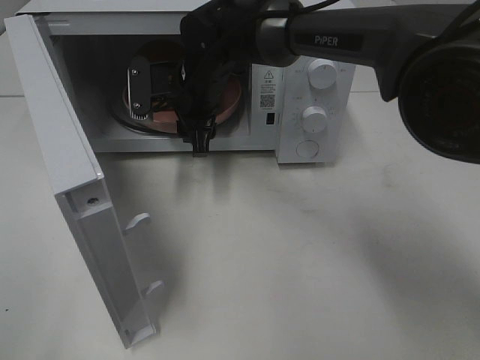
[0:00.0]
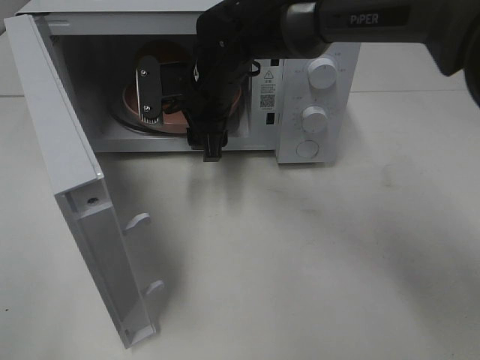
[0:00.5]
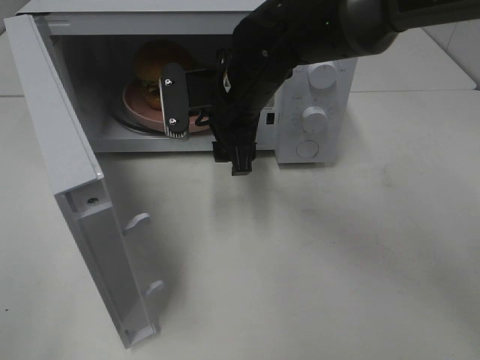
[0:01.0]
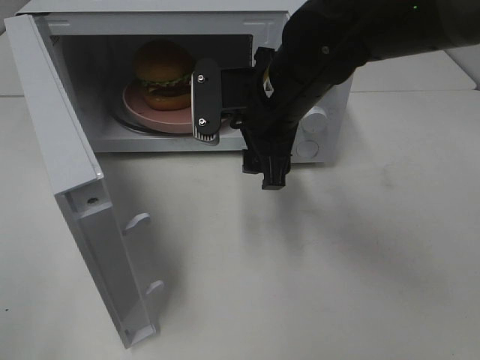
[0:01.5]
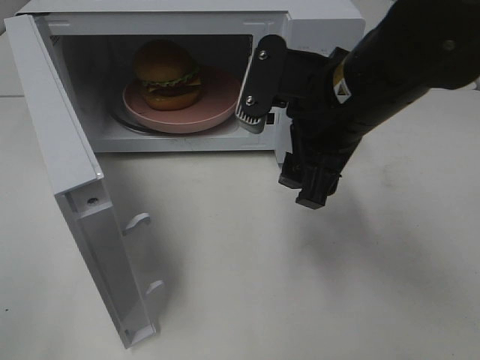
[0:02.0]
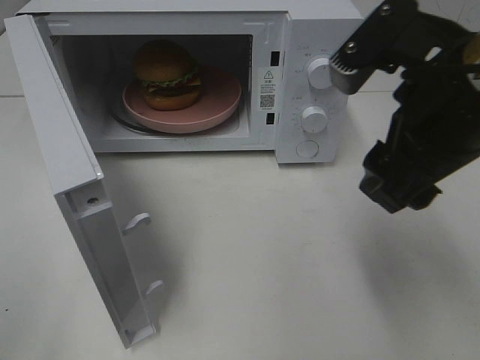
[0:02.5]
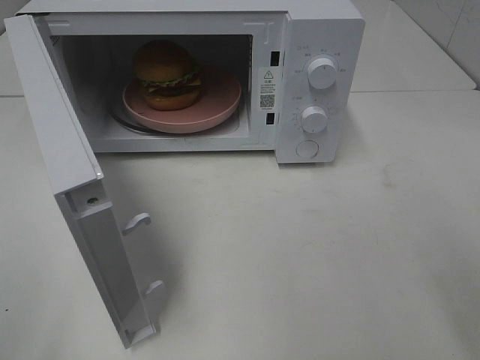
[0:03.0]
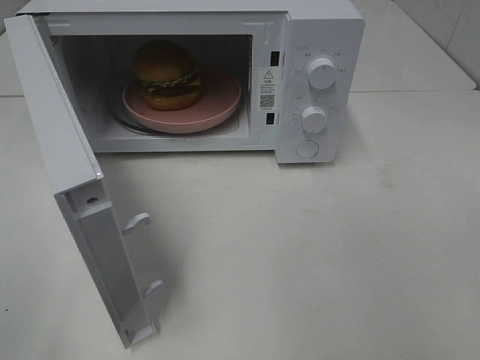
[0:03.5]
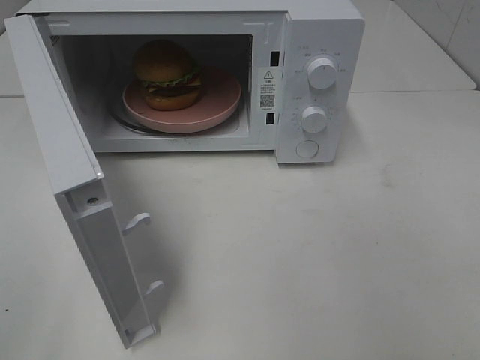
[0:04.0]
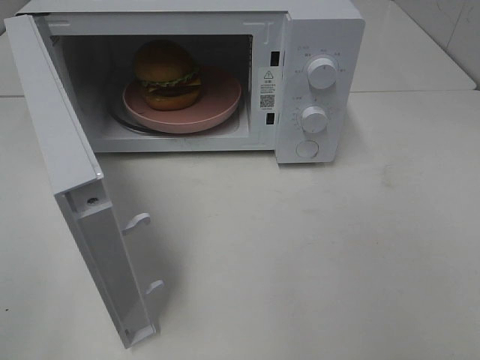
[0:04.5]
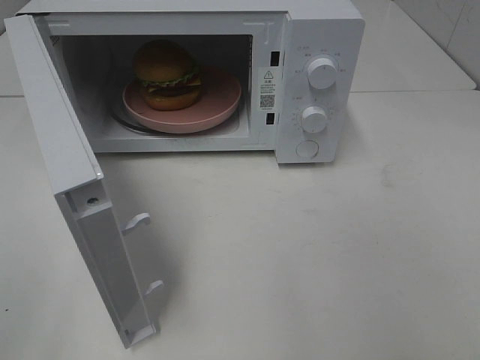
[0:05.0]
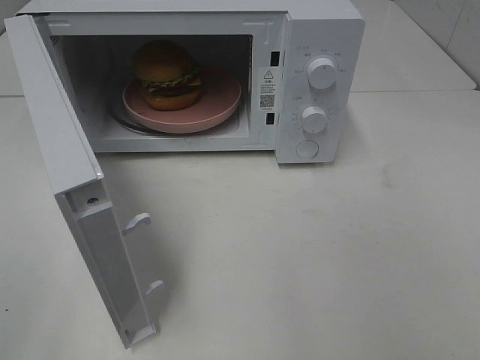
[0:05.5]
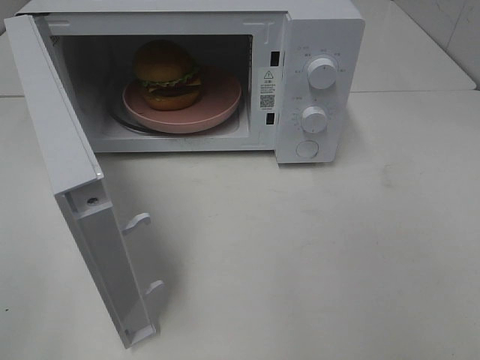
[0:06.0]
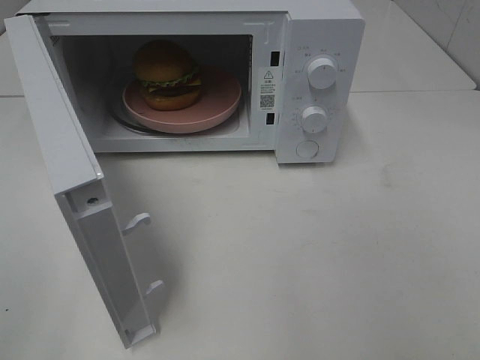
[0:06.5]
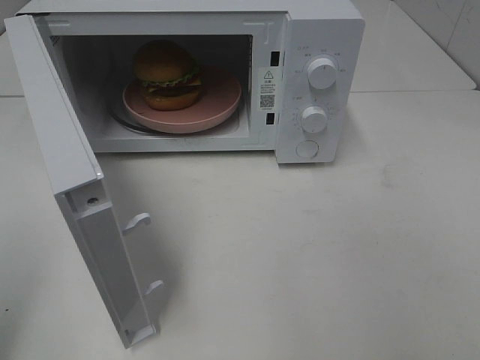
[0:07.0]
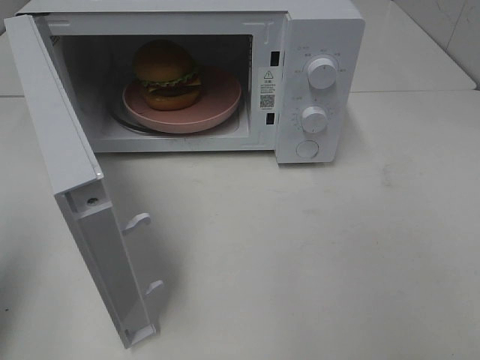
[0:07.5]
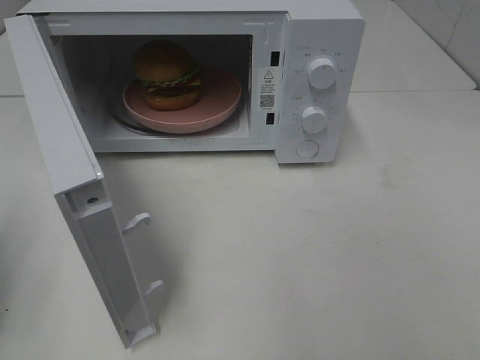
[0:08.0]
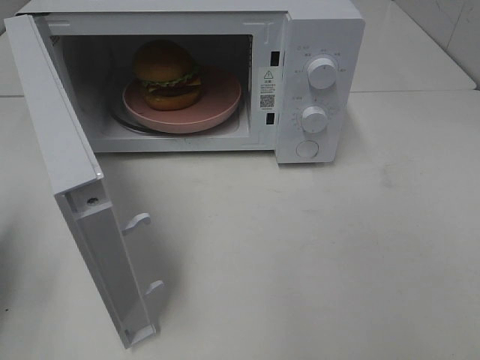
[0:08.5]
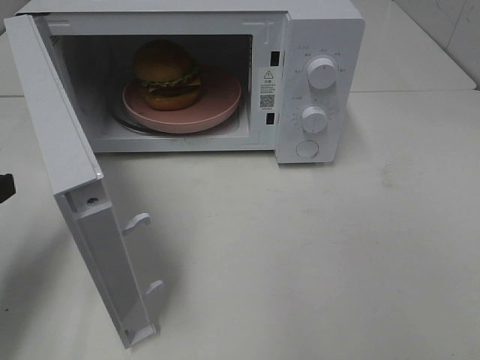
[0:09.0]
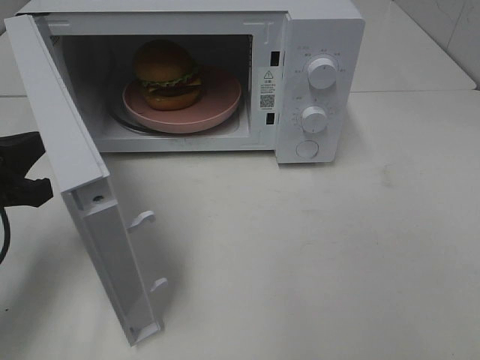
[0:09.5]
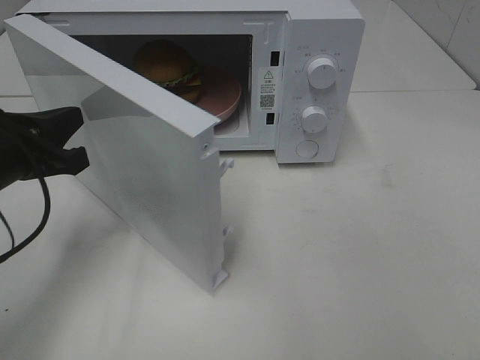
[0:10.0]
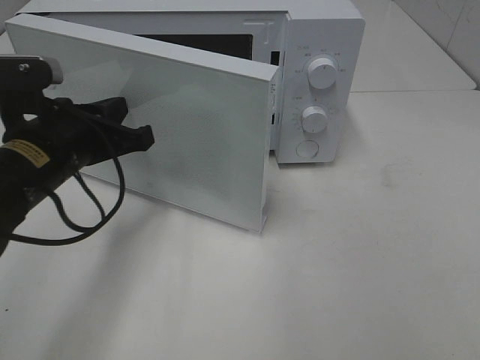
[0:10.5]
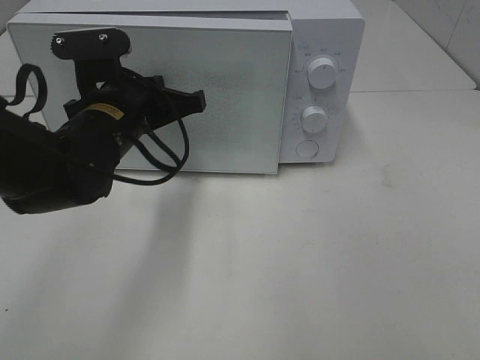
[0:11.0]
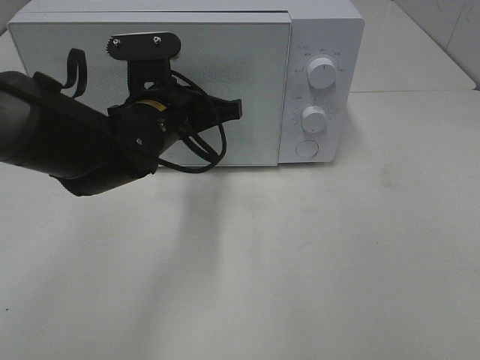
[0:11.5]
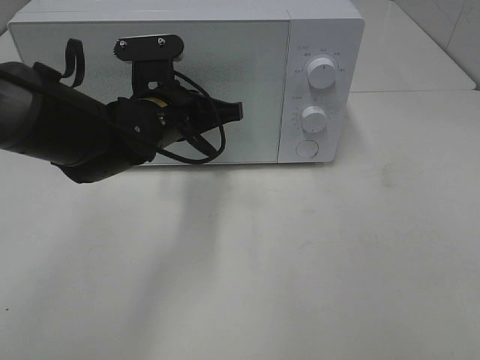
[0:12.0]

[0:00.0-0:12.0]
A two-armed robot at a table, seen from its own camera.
Task of the whole recording: Heat the burger.
0:00.0 to 0:02.0: The right gripper goes roughly 25 cm backward, to the right and upward.
0:02.0 to 0:04.0: The right gripper moves backward and to the right, about 30 cm.
0:08.0 to 0:10.0: The left gripper is displaced to the right and forward by approximately 15 cm.
0:10.0 to 0:12.0: The left gripper moves to the right and forward, approximately 20 cm.

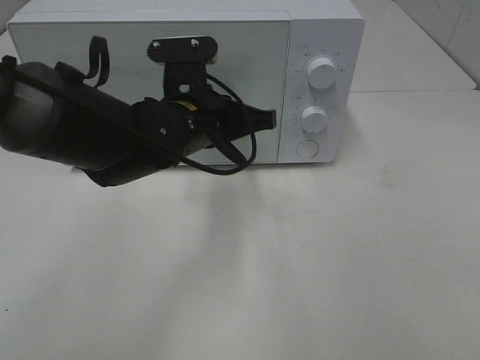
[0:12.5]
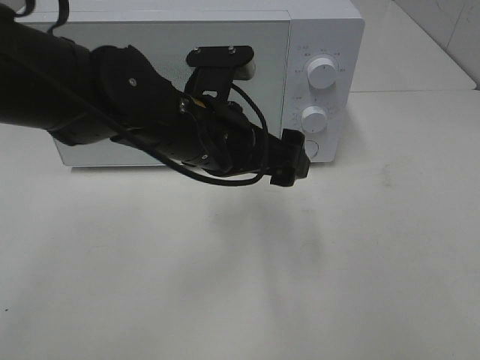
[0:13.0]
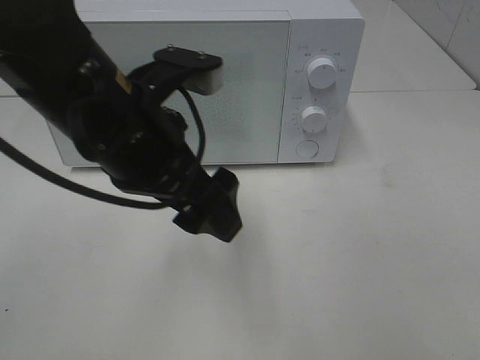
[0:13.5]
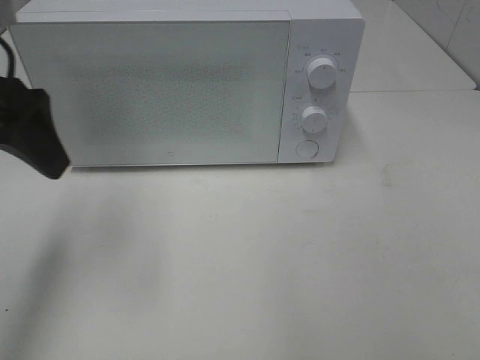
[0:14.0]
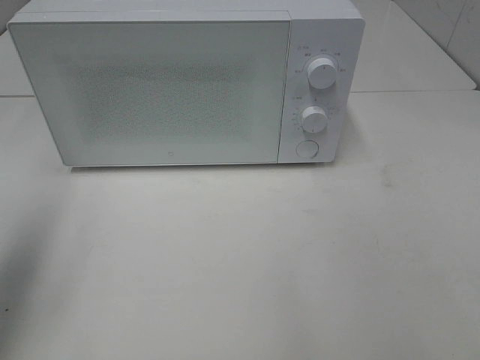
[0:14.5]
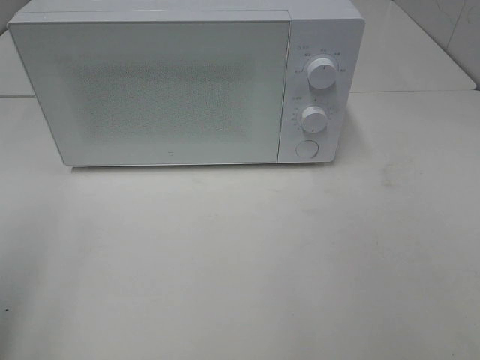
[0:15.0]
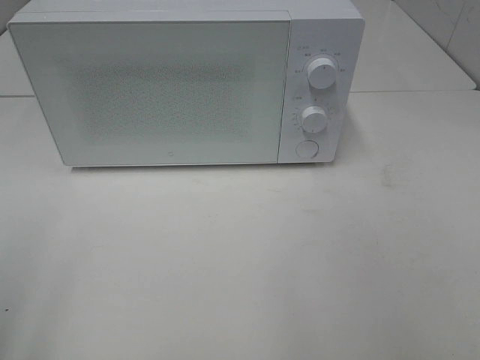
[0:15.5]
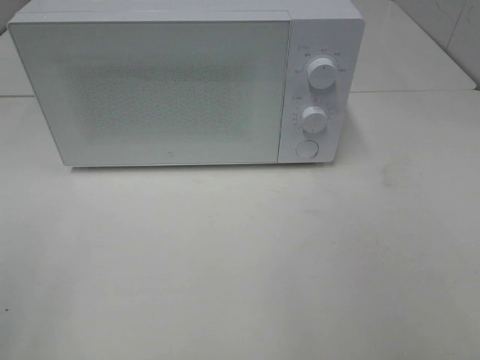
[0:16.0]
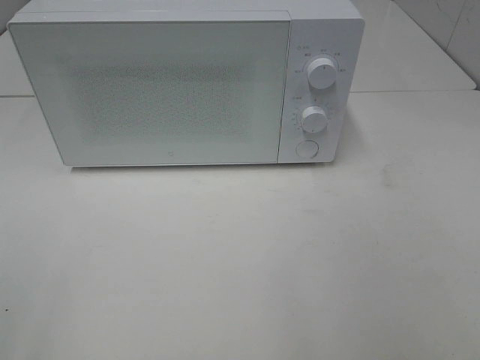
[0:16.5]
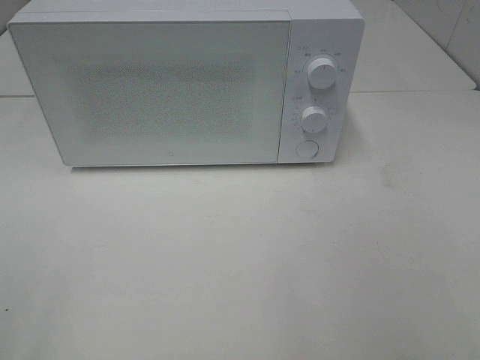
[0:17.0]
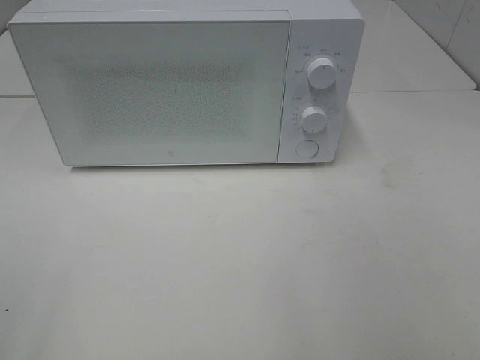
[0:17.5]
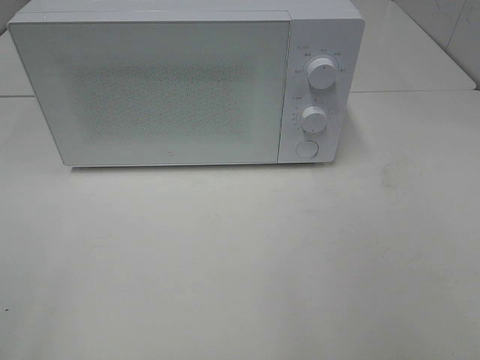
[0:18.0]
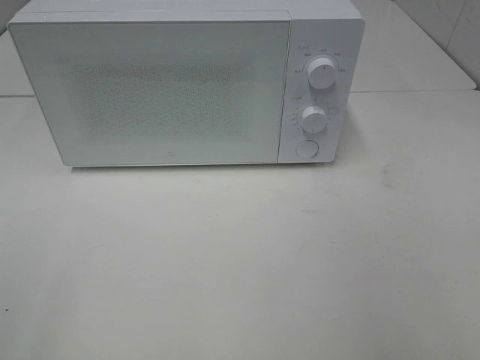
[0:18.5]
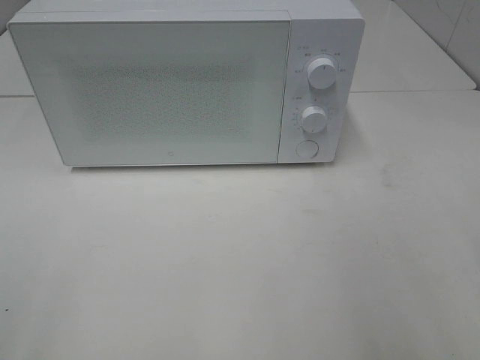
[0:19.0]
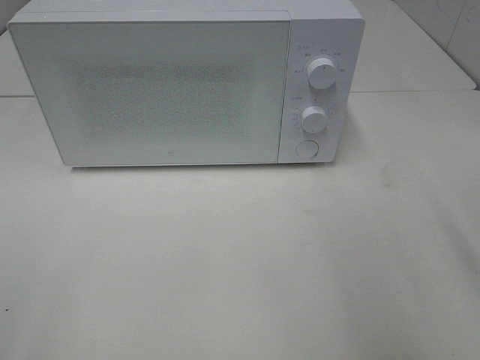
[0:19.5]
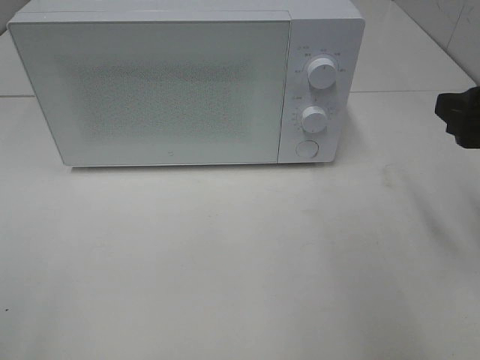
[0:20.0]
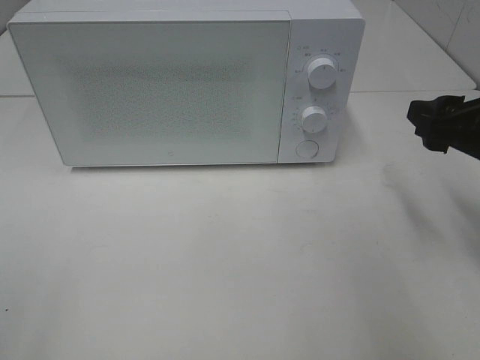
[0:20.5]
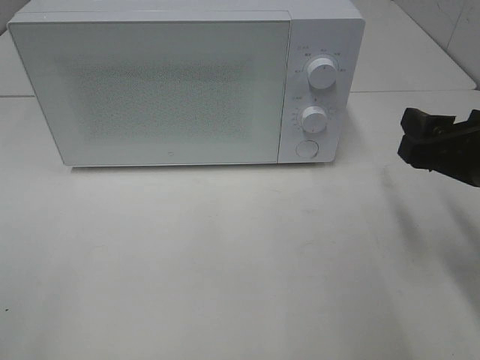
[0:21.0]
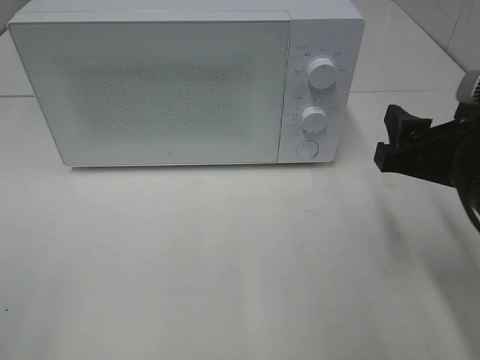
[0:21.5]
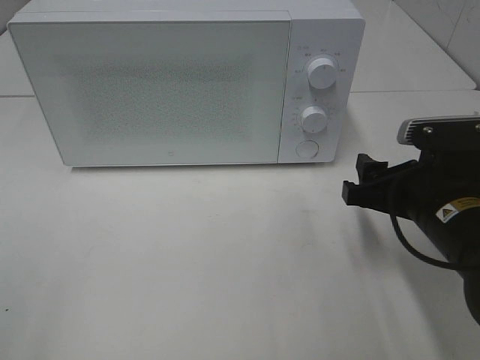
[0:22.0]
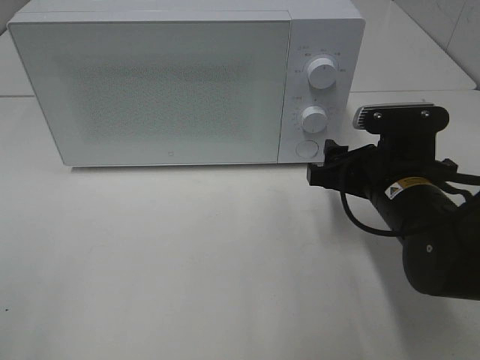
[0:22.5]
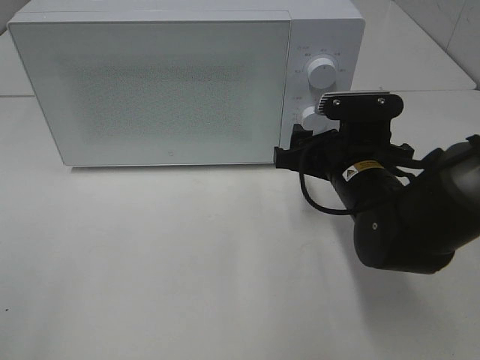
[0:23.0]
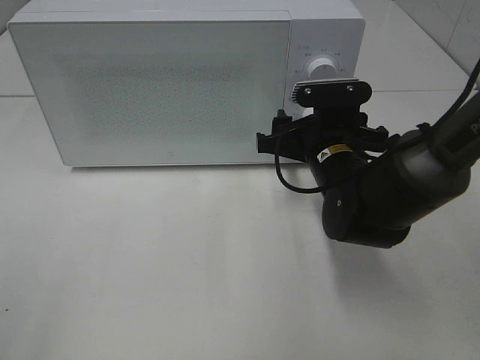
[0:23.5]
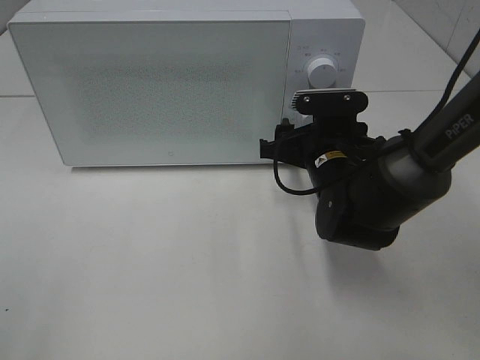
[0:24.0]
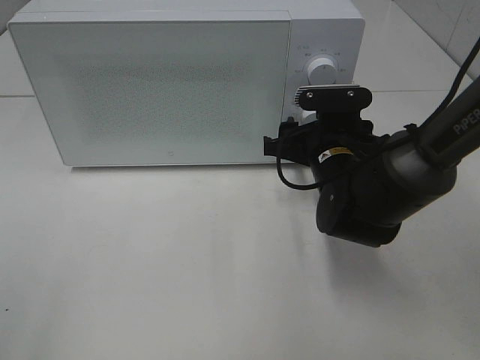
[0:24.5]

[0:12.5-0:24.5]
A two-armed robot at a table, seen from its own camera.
Task of the whole recording: Heat the burger.
0:12.5 to 0:14.5: The left gripper heads to the left, upward and backward, covering about 35 cm, and opens its fingers.
0:14.5 to 0:16.5: The left gripper shifts approximately 20 cm backward.
0:18.5 to 0:20.5: The right gripper goes approximately 25 cm forward and downward.
0:20.5 to 0:22.5: The right gripper is displaced to the left and downward by some 10 cm.
0:22.5 to 0:24.5: The right gripper shifts some 5 cm forward.

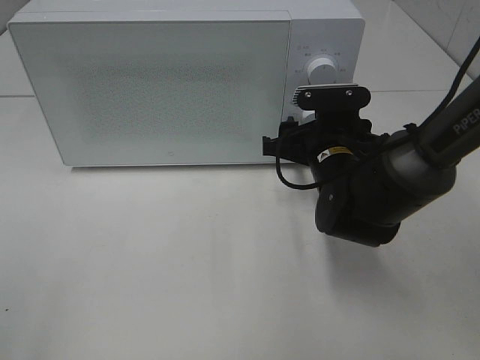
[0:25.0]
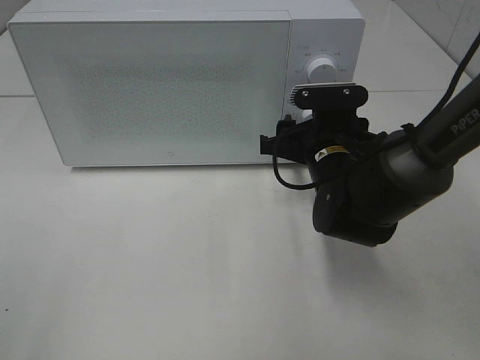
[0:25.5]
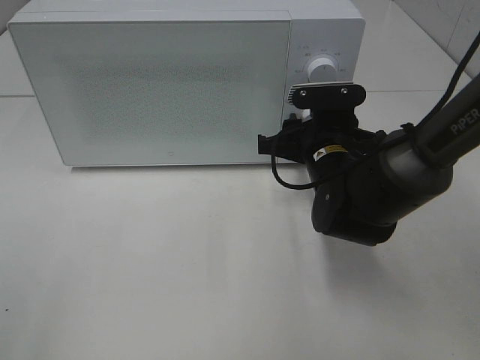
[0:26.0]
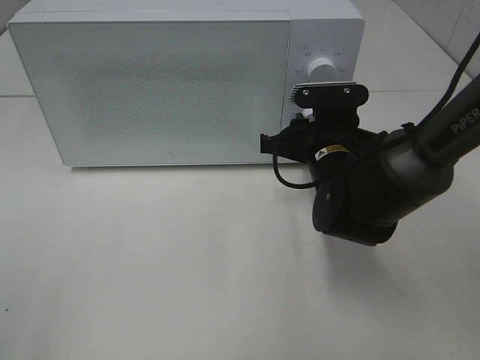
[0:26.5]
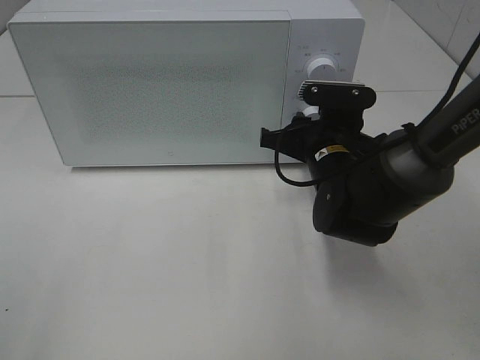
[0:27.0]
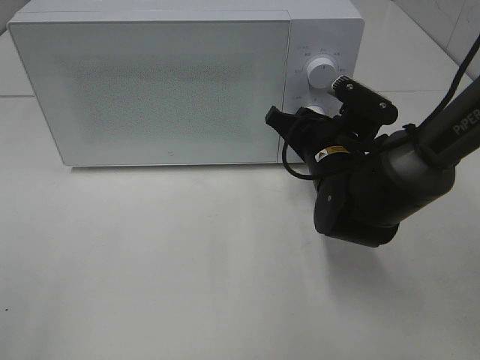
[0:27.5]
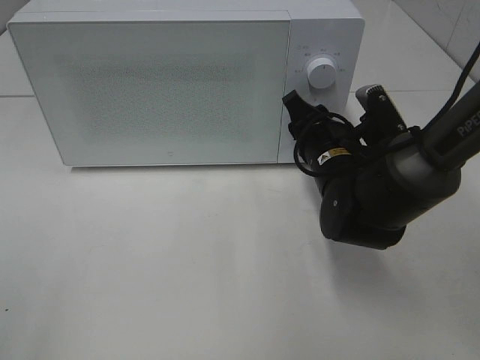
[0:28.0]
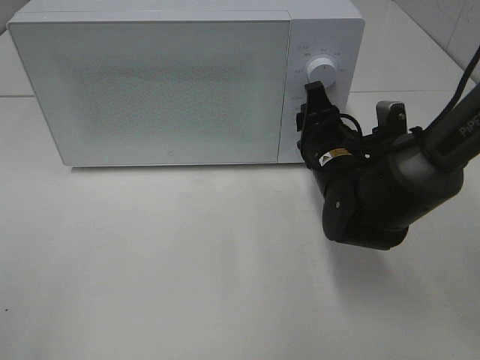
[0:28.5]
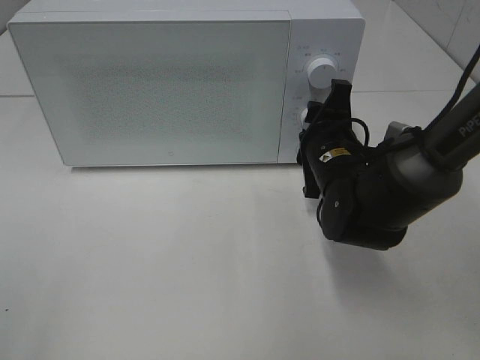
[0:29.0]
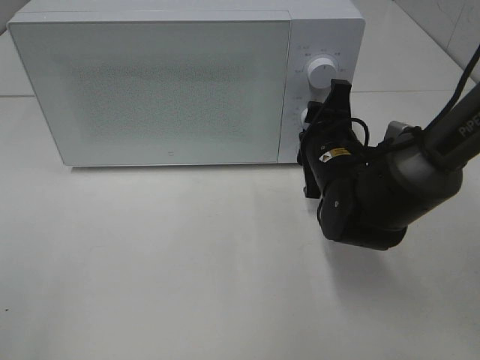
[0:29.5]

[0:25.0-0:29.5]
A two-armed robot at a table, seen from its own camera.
Task of the whole recording: Heat the burger.
0:25.0 to 0:27.0: There are only small adjustments of the grippers.
